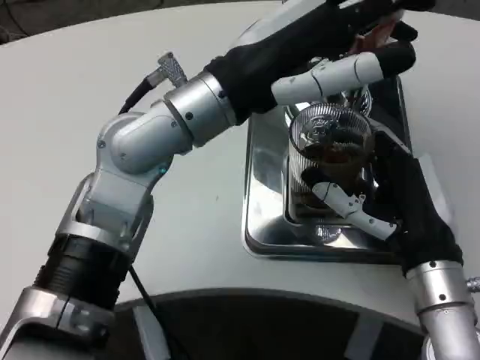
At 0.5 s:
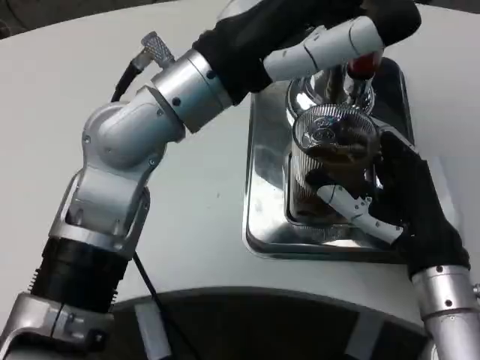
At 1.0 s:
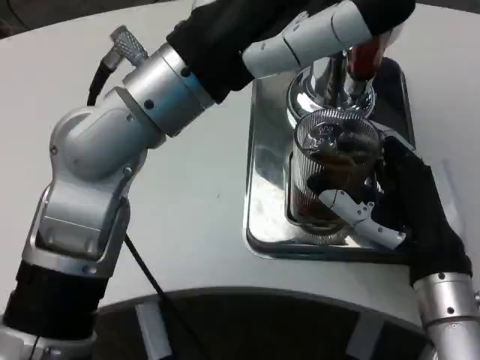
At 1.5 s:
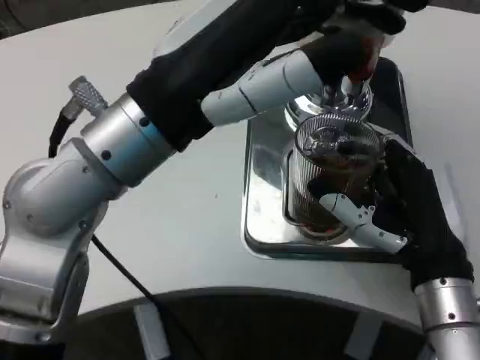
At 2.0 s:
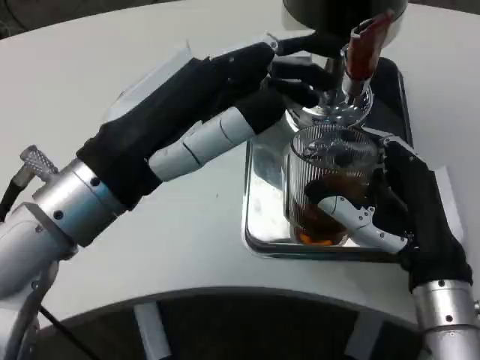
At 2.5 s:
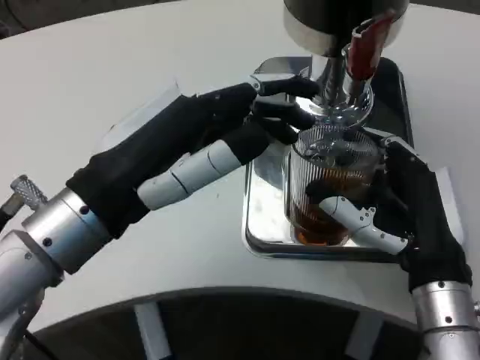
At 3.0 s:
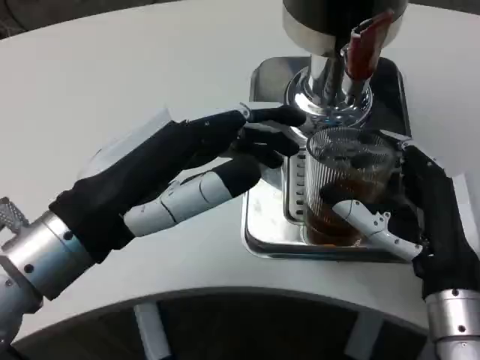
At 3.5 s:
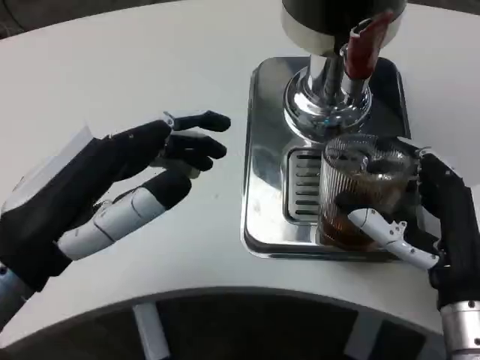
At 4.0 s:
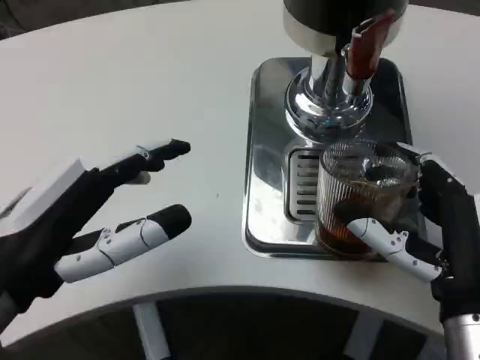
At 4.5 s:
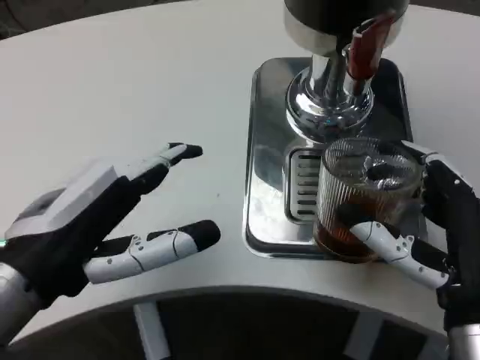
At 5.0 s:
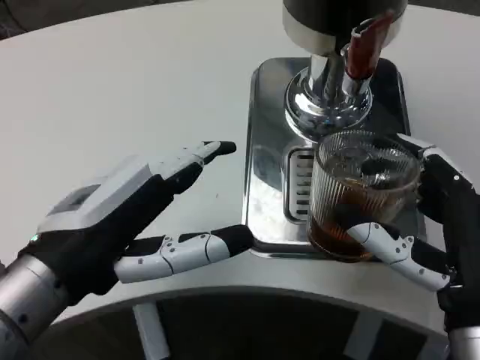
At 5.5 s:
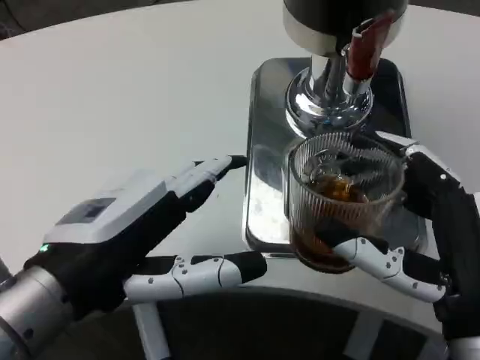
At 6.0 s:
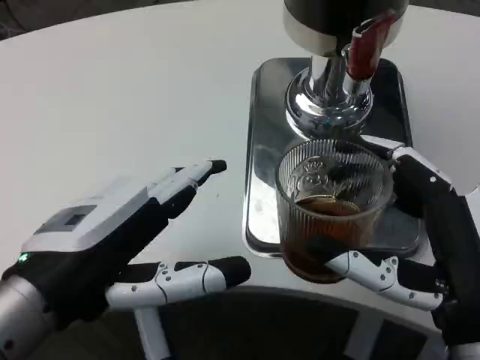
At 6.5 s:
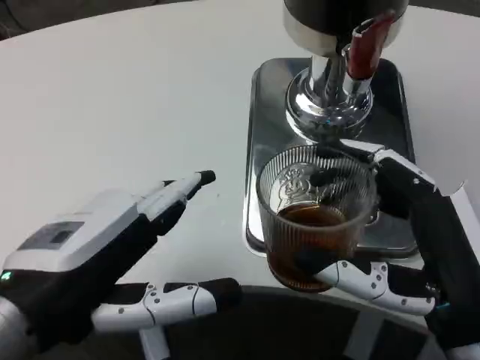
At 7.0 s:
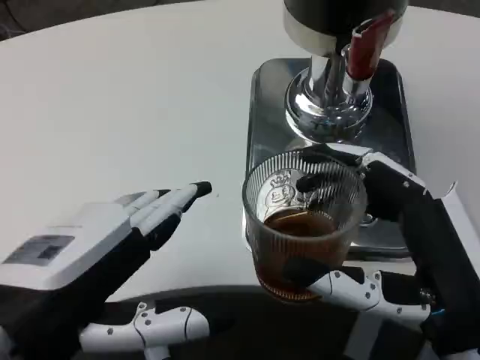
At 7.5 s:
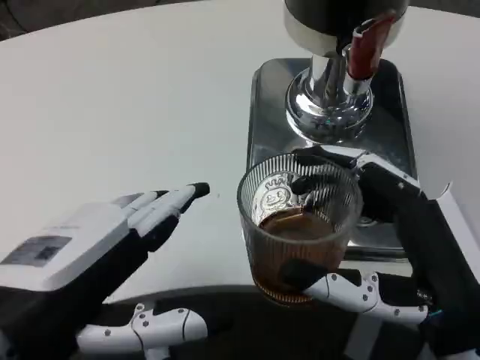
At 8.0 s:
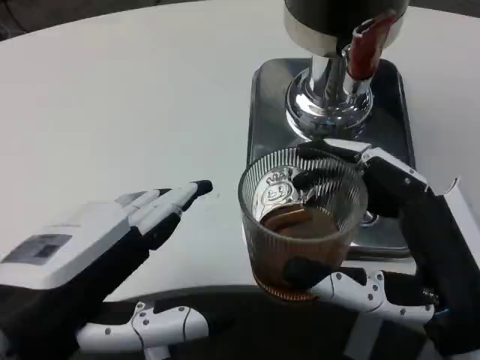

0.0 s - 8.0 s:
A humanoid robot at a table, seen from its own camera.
Task of the whole recording: Grasp the cup under the faucet to collect the drink, then remove the cup.
0.0 s - 2.0 s: The left hand moves backward and to the left, about 10 cm.
2.0 s - 4.0 s: The left hand heads backward and to the left, covering some 10 cm.

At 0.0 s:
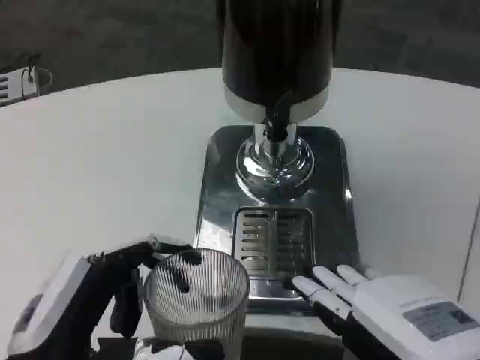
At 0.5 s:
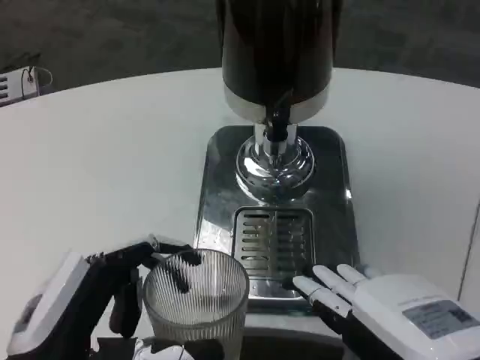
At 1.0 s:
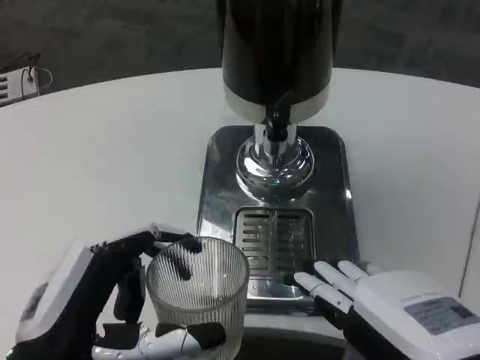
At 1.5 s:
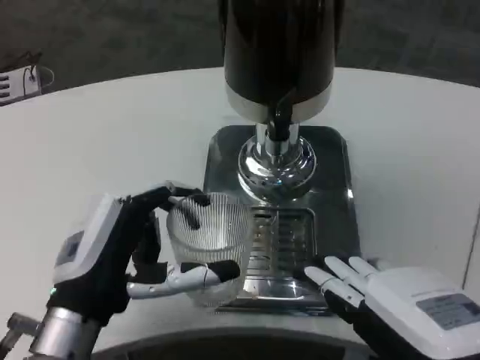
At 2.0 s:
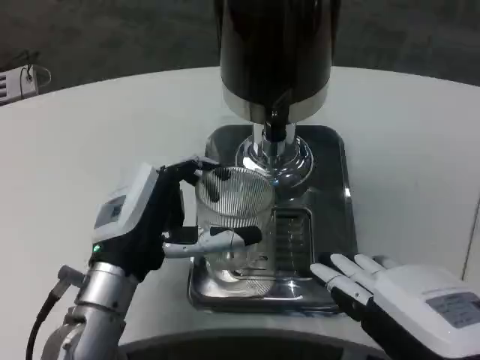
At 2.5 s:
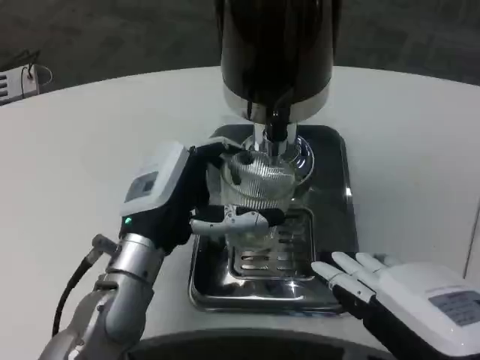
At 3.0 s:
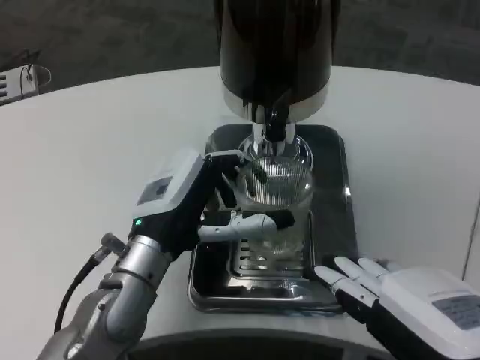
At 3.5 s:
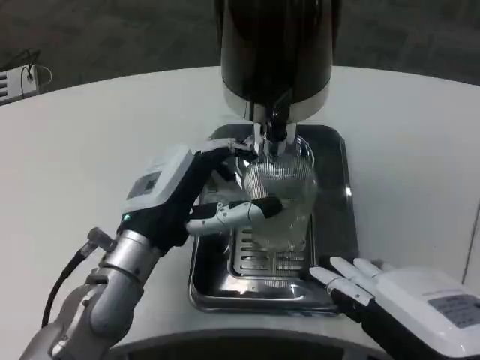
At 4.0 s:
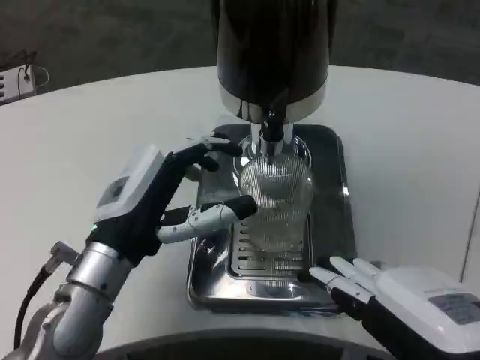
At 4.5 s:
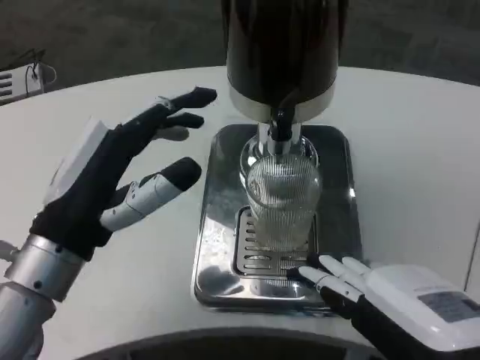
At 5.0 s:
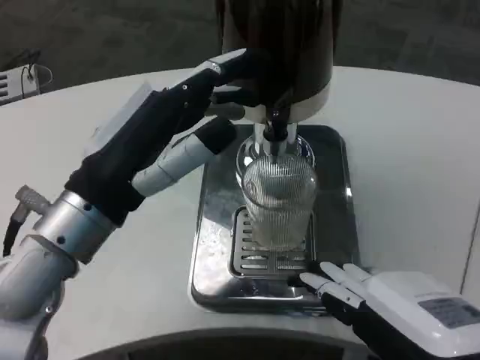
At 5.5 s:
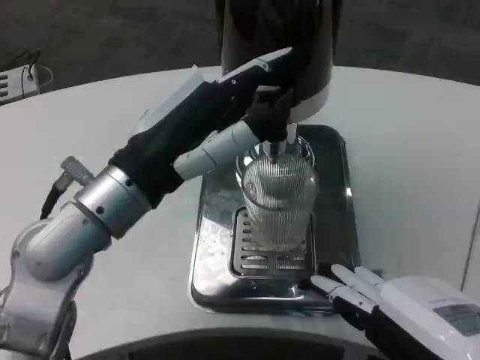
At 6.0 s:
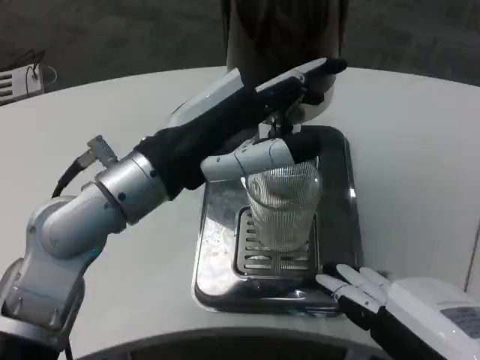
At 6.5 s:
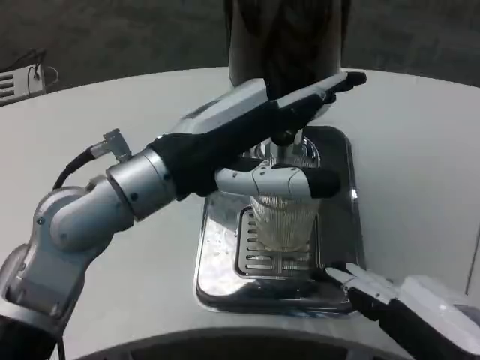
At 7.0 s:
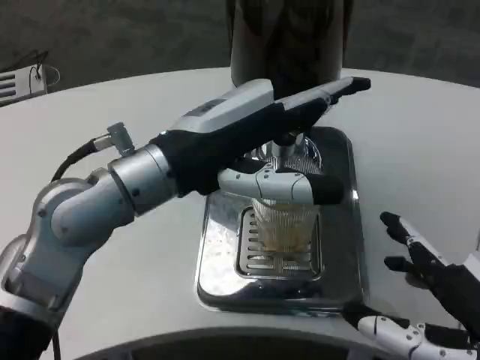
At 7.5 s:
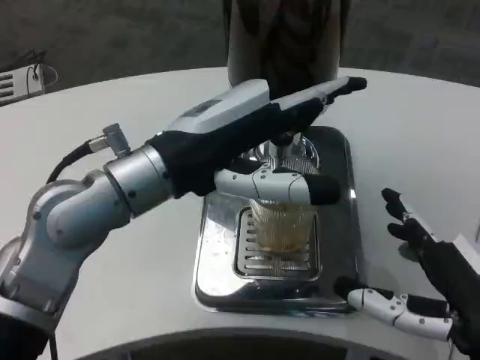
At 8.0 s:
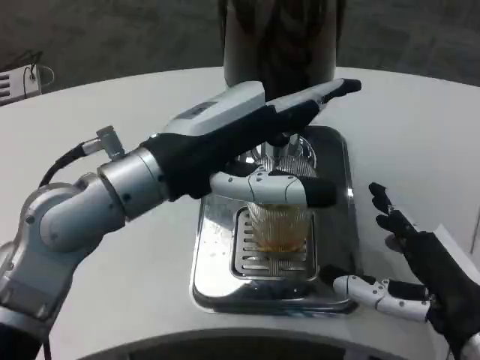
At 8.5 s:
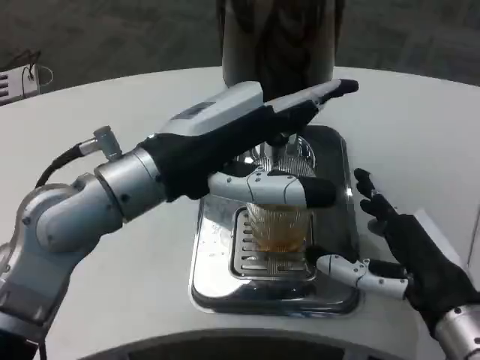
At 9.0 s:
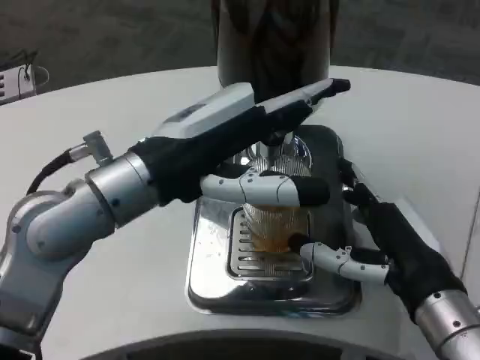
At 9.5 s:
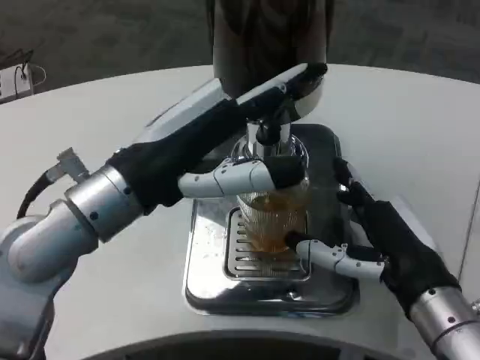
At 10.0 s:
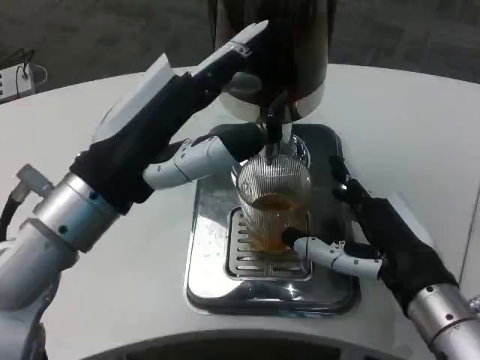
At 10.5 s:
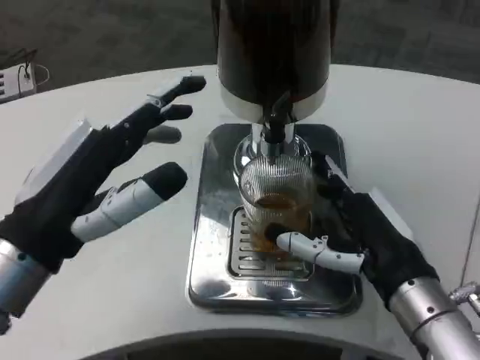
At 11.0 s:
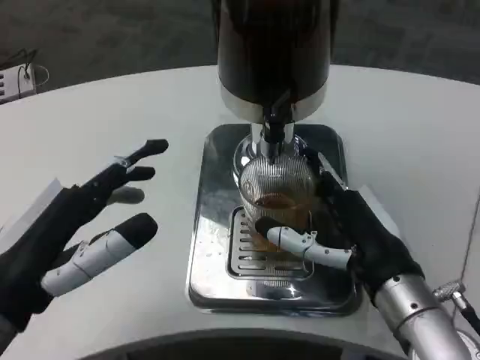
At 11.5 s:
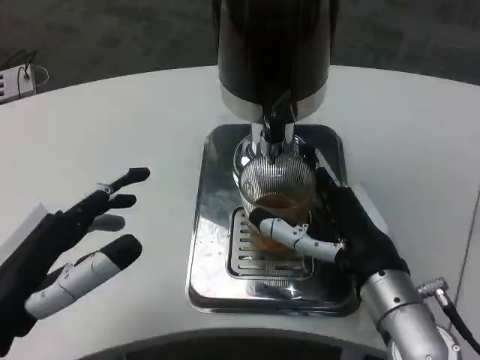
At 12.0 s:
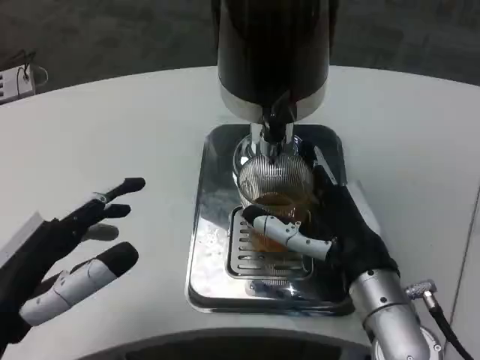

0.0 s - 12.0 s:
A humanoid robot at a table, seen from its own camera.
Task of the whole recording: Grasp the cup under the faucet to collect the drink, then remove the cup.
0.0 s - 2.0 s: The left hand shifts roughly 15 cm forward.
2.0 s - 4.0 s: There are only small adjustments of the hands.
4.0 s - 6.0 s: The left hand shifts about 10 cm upward.
6.0 s - 8.0 s: The right hand moves forward and downward, roughly 10 cm.
8.0 s - 10.0 s: The left hand moves approximately 5 cm; the right hand changes place by roughly 5 cm.
10.0 s - 12.0 s: The right hand travels to the left by some 5 cm. The left hand shifts approximately 15 cm backward, to the left and downward.

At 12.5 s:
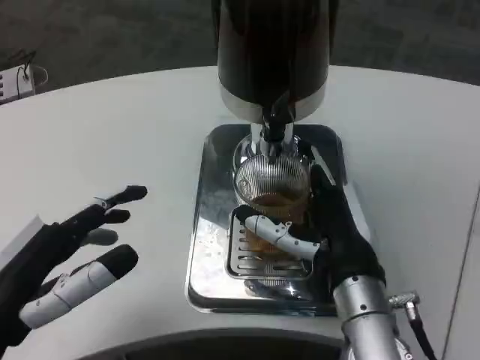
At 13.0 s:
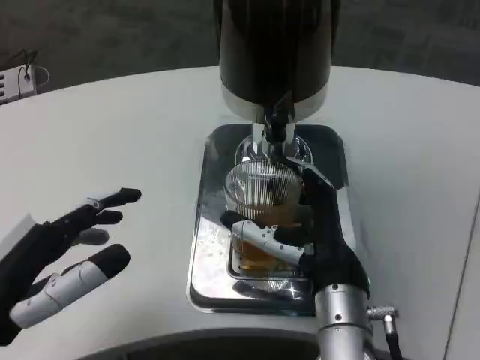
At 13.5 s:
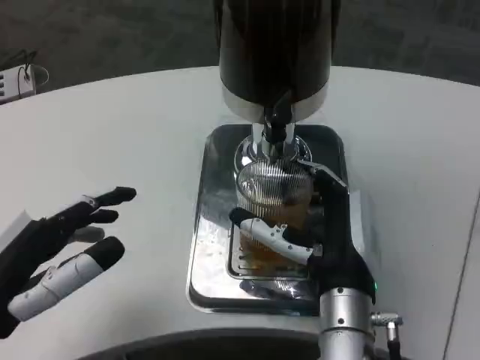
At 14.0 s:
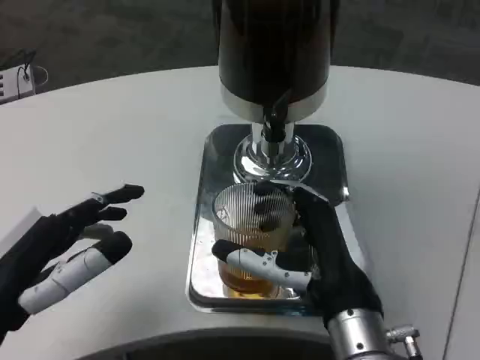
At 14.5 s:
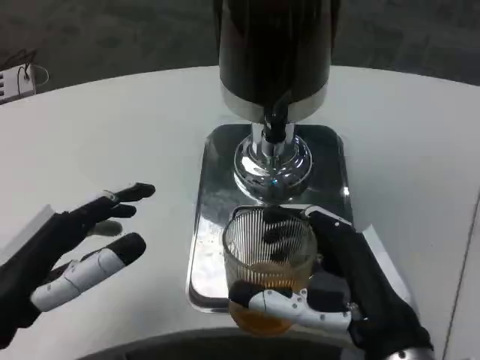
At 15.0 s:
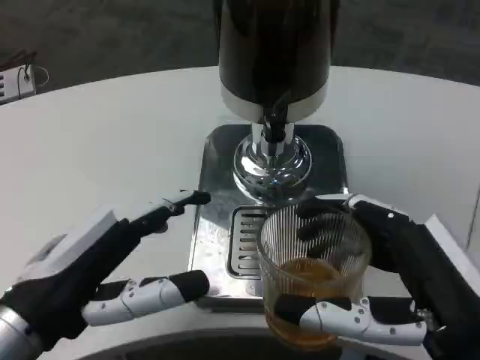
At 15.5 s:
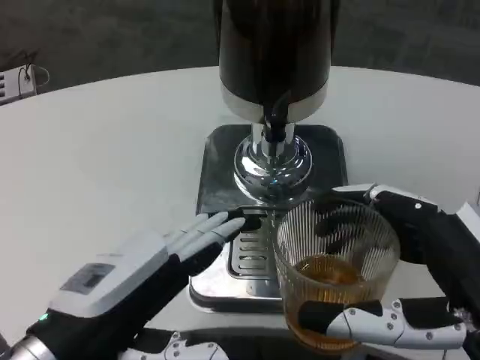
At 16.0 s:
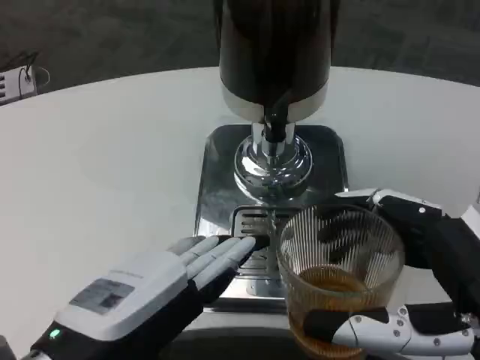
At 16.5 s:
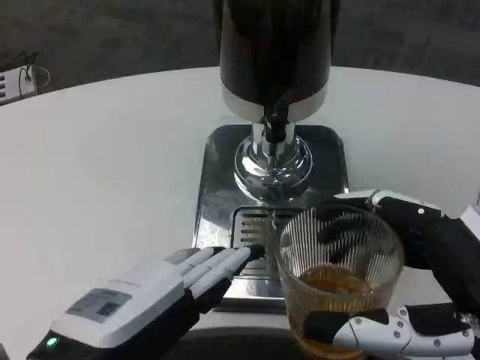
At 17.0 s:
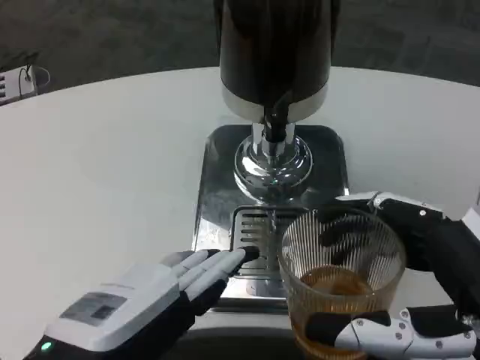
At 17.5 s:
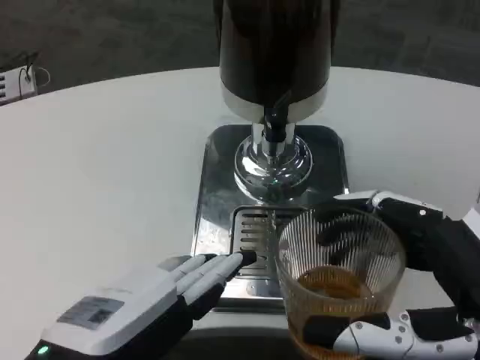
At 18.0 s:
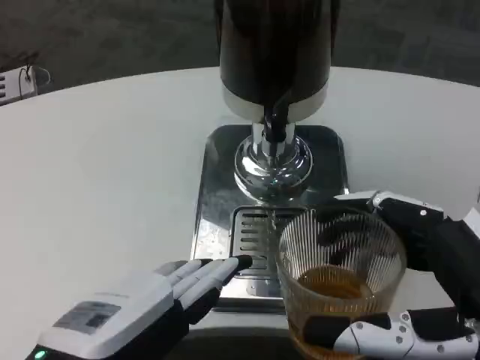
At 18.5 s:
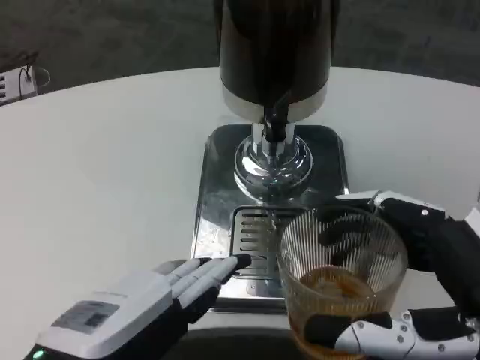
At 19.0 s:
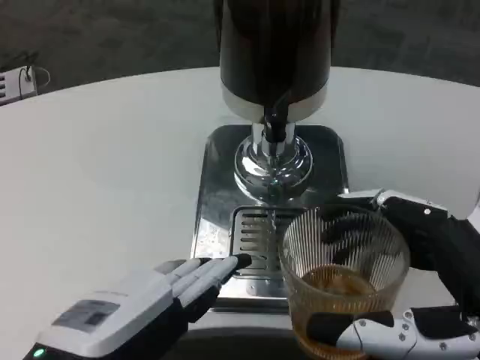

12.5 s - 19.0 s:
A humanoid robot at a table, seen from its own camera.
Task of the whole recording: Grasp the cup under the faucet to collect the drink, then remove the cup.
12.5 s - 14.5 s: The right hand shifts about 10 cm backward.
14.5 s - 17.0 s: The left hand heads to the right and backward, covering roughly 10 cm, while the right hand goes roughly 10 cm to the right, backward and upward.
17.0 s - 19.0 s: The two hands keep their place.
